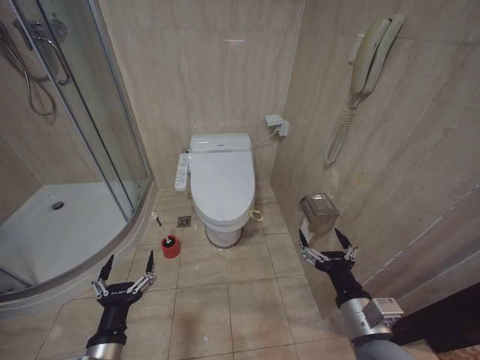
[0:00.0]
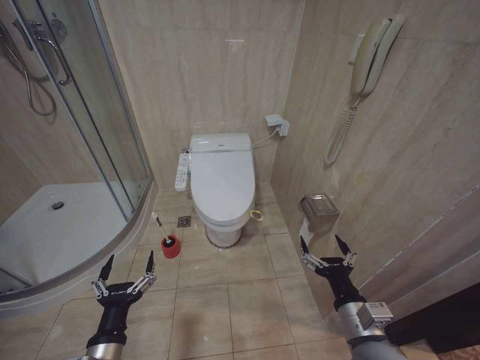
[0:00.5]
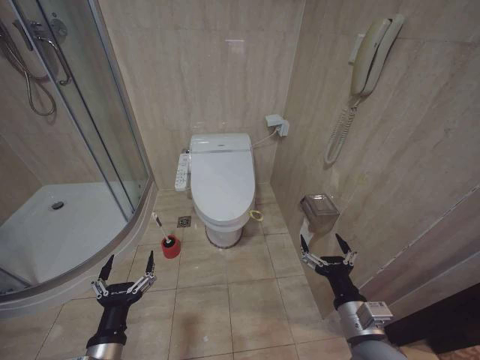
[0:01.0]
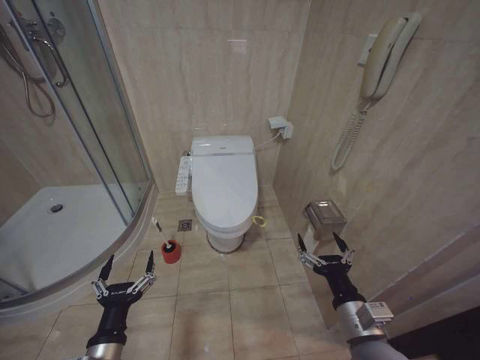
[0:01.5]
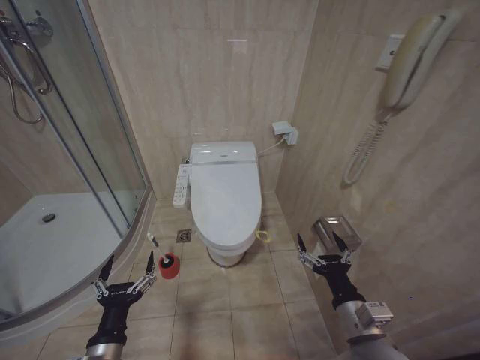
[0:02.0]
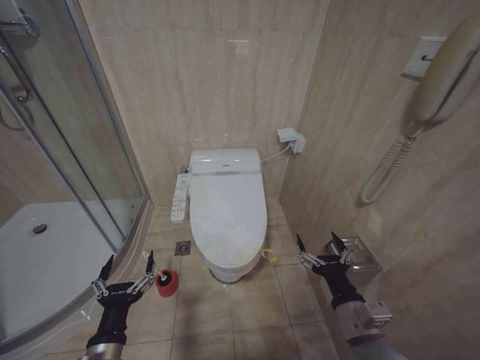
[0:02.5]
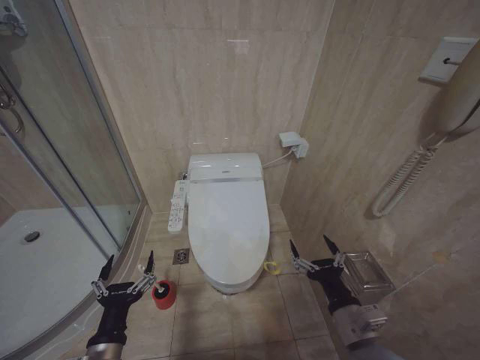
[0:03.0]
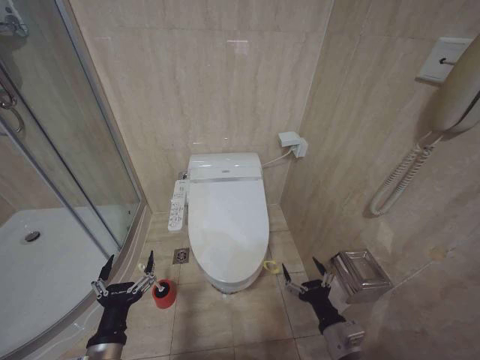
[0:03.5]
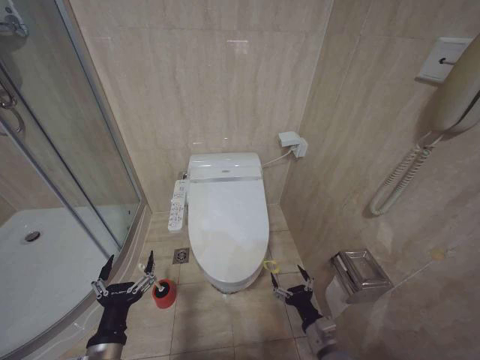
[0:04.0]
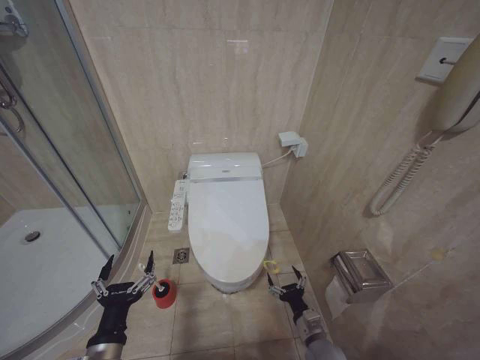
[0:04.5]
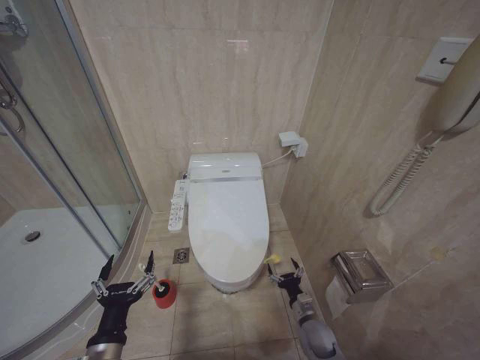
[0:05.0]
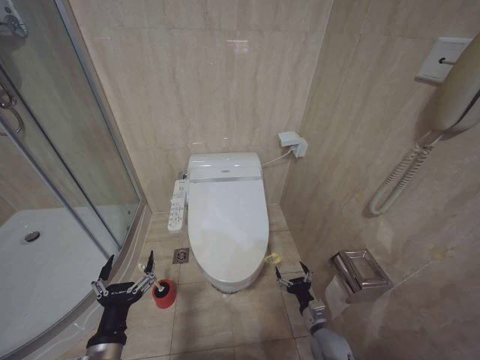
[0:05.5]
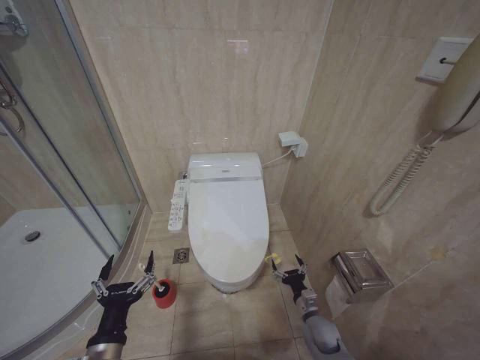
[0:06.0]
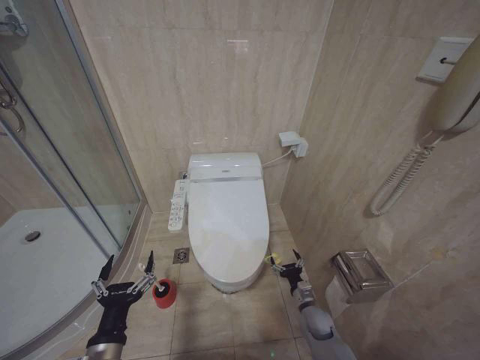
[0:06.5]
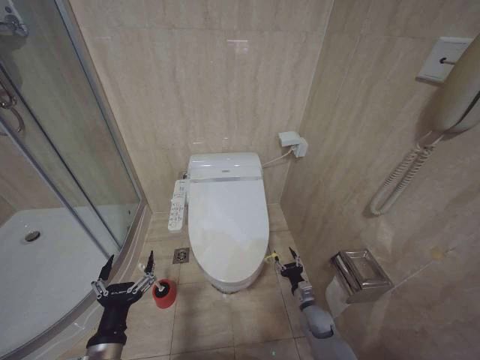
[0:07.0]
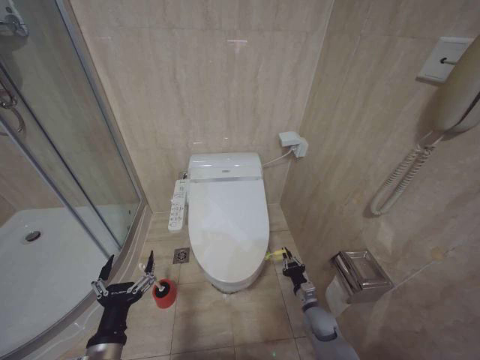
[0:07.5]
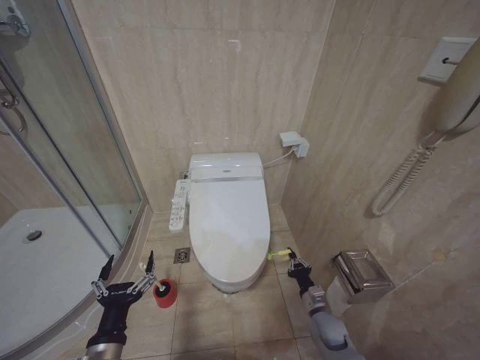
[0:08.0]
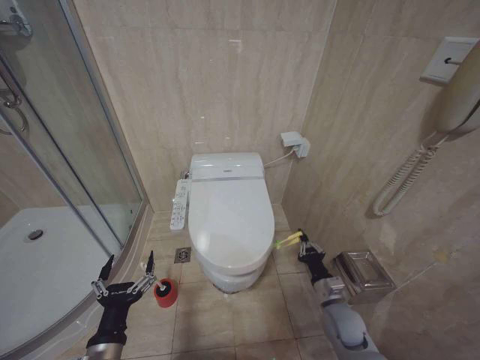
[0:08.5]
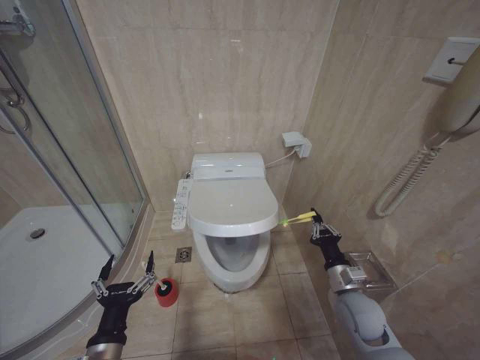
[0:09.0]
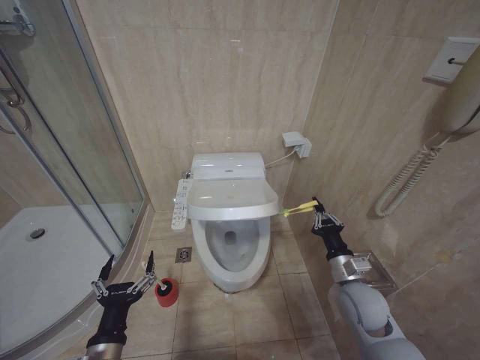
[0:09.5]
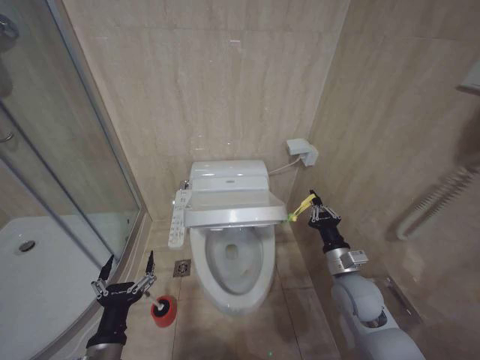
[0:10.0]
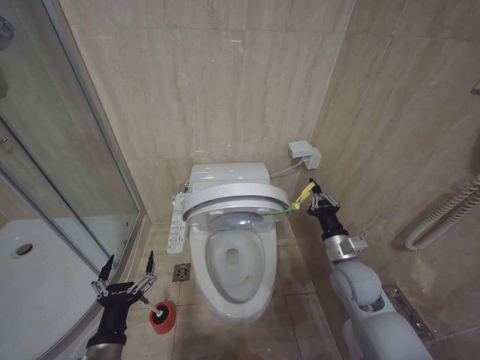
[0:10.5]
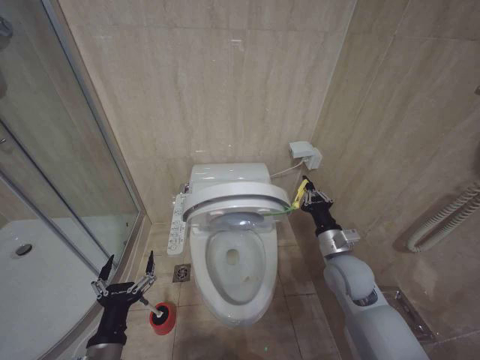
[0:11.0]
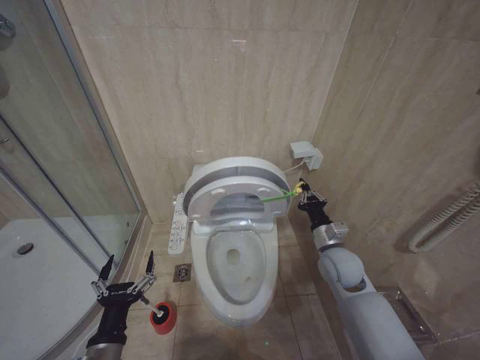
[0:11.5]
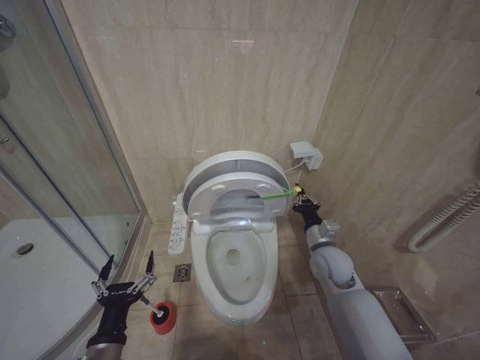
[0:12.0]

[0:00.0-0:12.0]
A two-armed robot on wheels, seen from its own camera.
Task of the whole recording: Open the toilet lid, clean the toilet bowl with a toilet brush, close the toilet lid, and flush.
0:02.0 to 0:04.0: The right gripper shifts approximately 15 cm downward.
0:04.0 to 0:06.0: The right gripper travels forward and downward by approximately 15 cm.
0:06.0 to 0:08.0: The right gripper closes.
0:08.0 to 0:10.0: The right gripper goes roughly 20 cm upward.
0:10.0 to 0:12.0: The right gripper is displaced forward by approximately 5 cm.

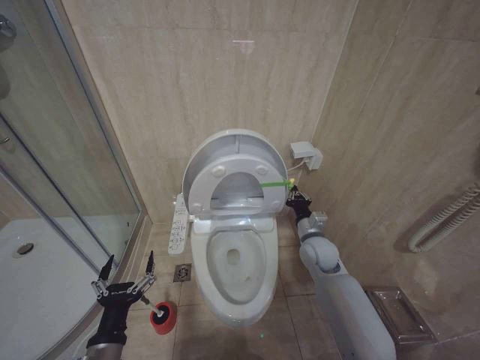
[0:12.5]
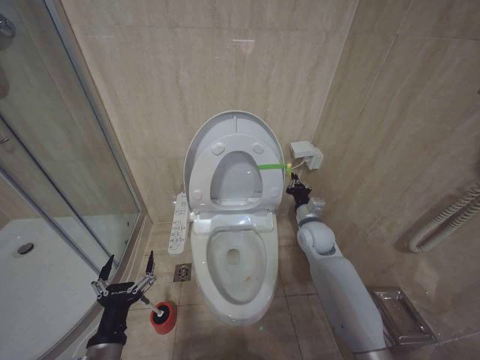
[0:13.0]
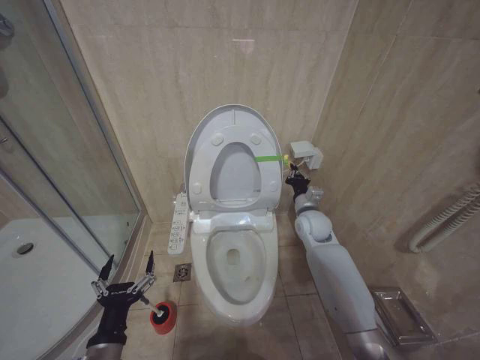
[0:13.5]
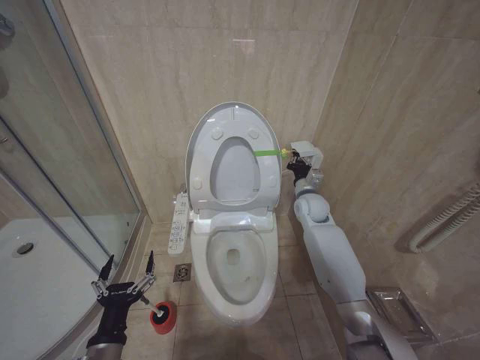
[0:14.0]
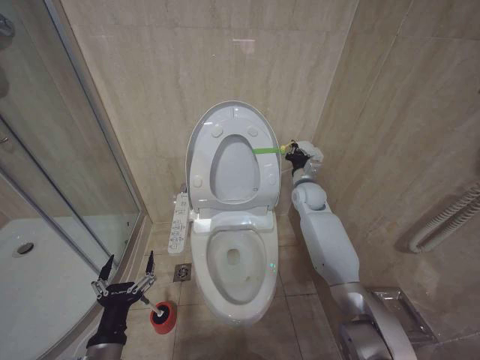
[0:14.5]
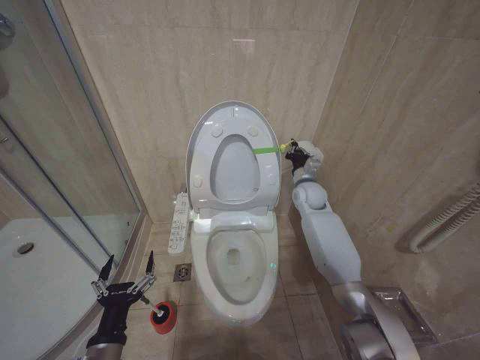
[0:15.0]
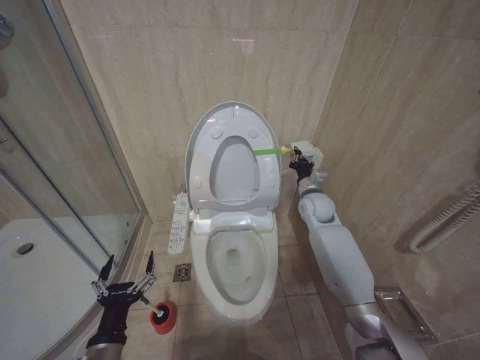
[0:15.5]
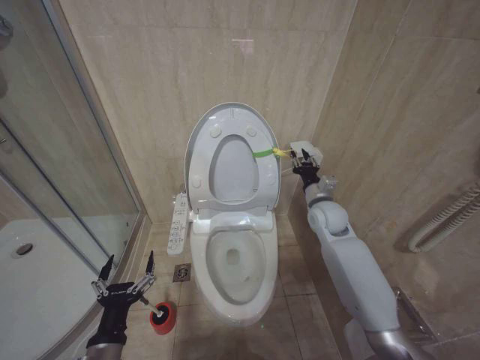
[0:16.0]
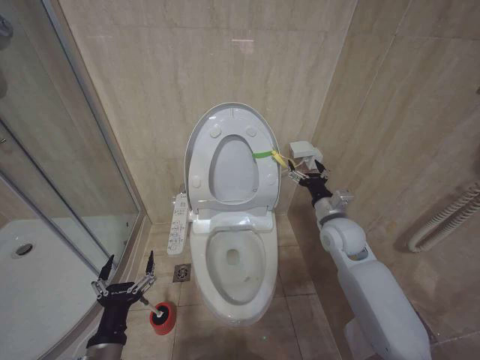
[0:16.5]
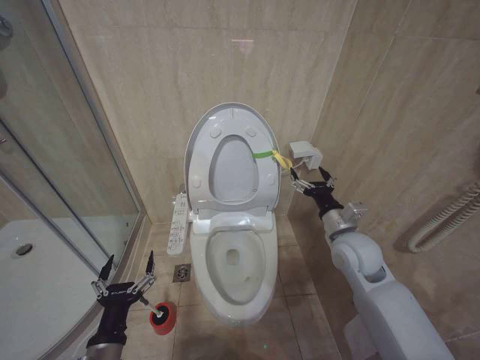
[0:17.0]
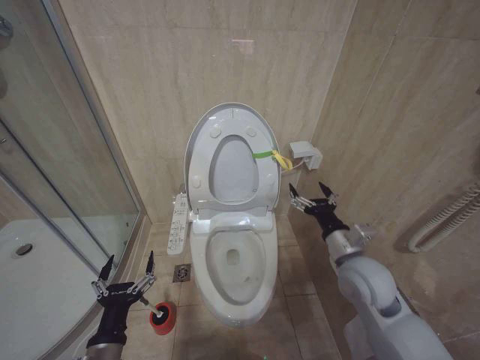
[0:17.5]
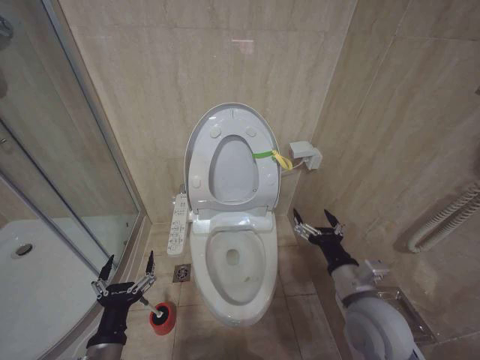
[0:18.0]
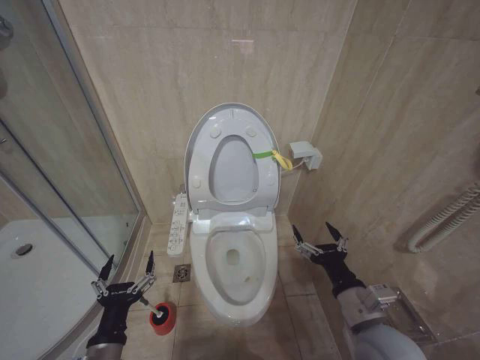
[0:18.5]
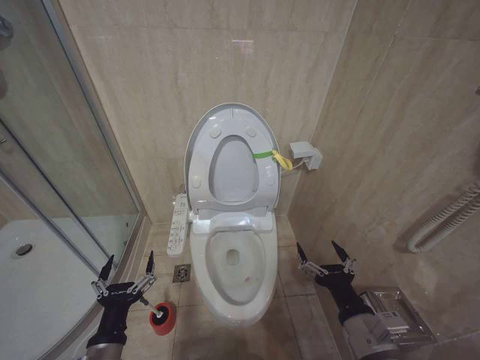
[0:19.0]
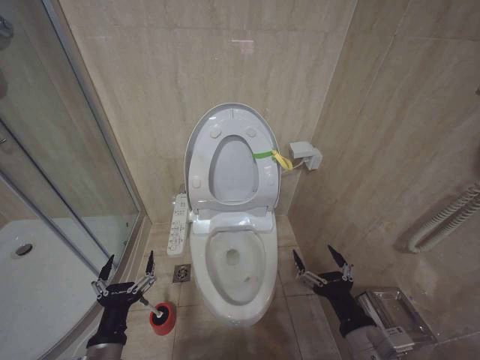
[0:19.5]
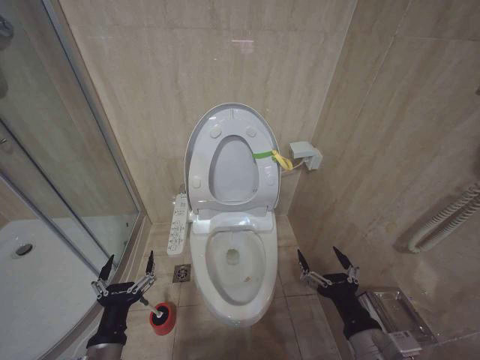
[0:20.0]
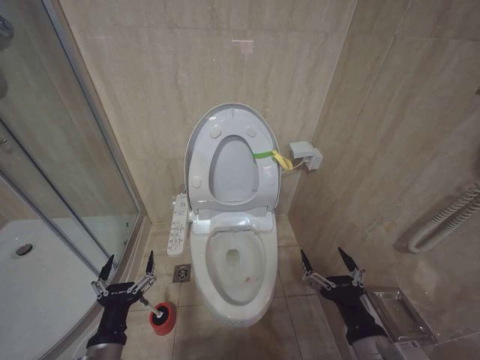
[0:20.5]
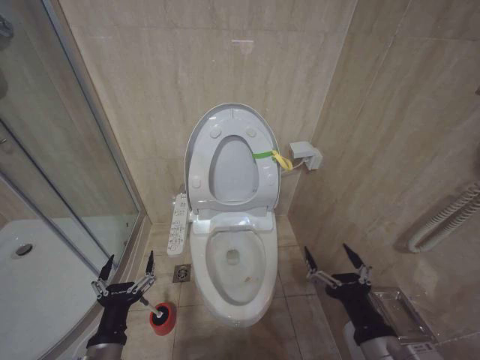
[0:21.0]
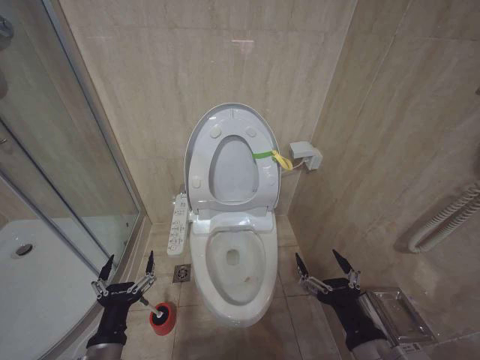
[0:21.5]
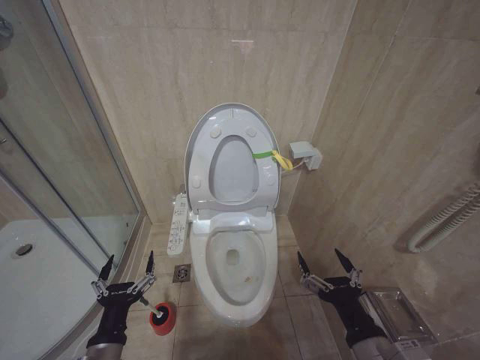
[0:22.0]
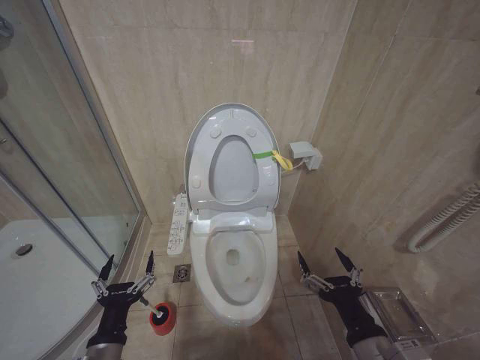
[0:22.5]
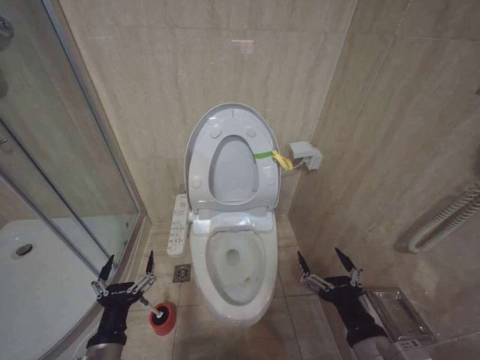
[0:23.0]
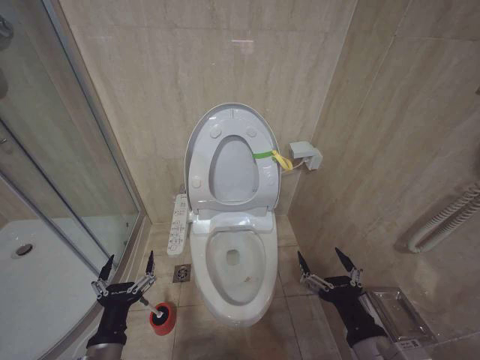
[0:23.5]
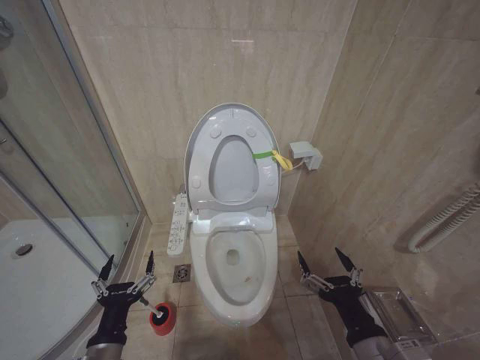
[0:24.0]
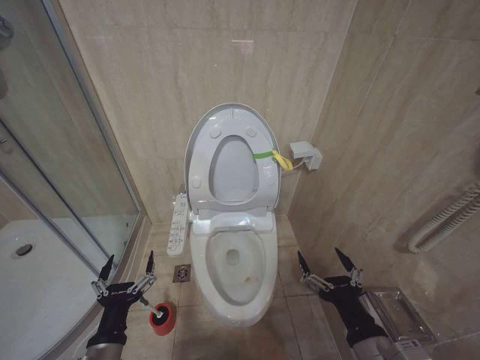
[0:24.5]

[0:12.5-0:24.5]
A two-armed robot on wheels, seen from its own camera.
Task of the whole recording: Open the toilet lid, clean the toilet bowl with a toilet brush, close the toilet lid, and flush.
0:12.5 to 0:14.5: The right gripper travels forward and upward by roughly 15 cm.
0:14.5 to 0:16.5: The right gripper goes approximately 15 cm backward, and opens.
0:16.5 to 0:18.5: The right gripper heads backward, covering some 20 cm.
0:18.5 to 0:20.5: The right gripper moves backward, some 10 cm.
0:22.5 to 0:24.5: Both grippers stay about where they are.

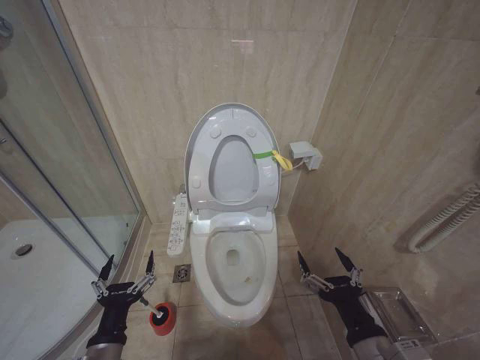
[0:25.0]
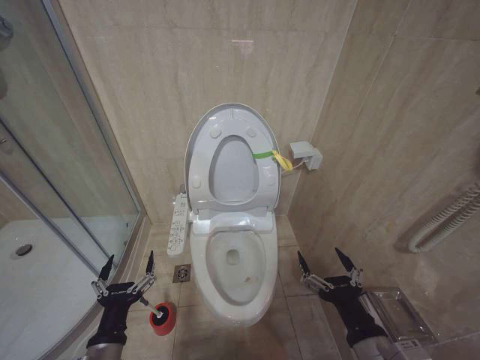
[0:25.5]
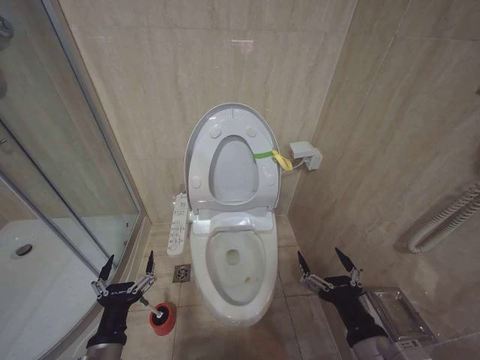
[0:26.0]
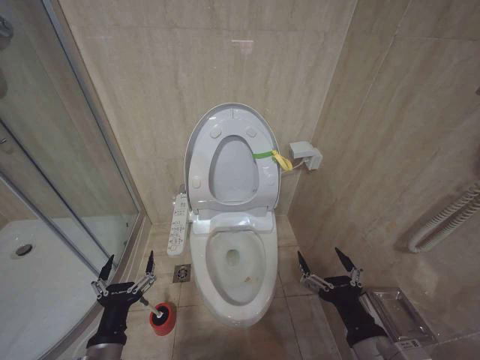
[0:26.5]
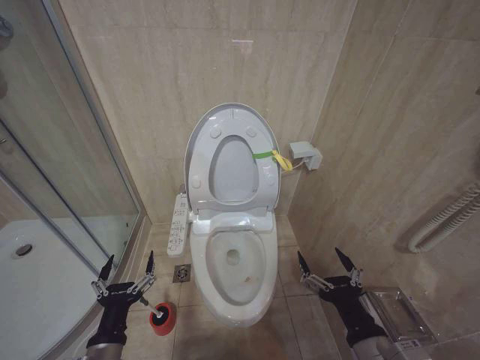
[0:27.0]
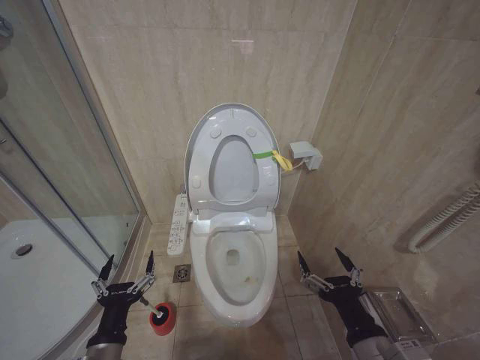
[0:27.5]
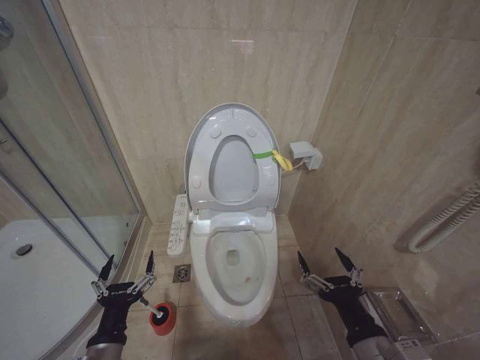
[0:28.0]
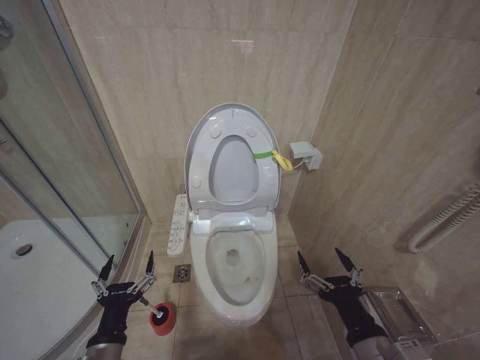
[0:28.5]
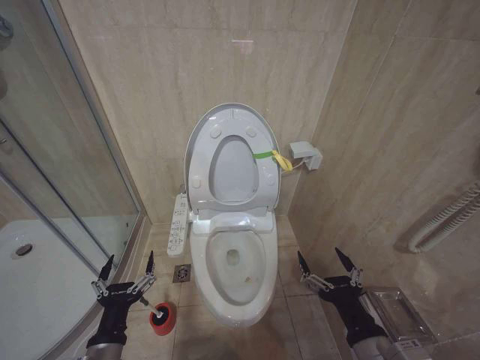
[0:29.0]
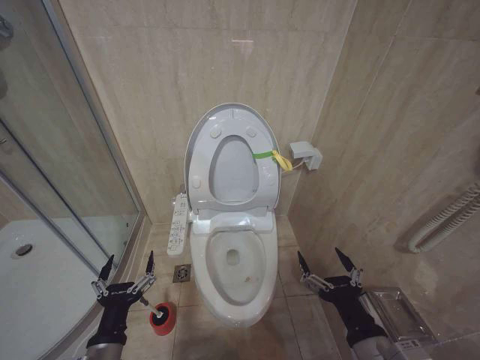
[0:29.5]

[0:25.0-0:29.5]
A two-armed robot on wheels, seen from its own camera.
Task of the whole recording: Open the toilet lid, clean the toilet bowl with a toilet brush, close the toilet lid, and flush.
0:25.0 to 0:29.5: Both grippers stay about where they are.
